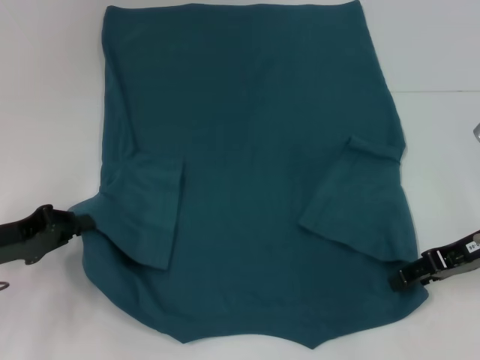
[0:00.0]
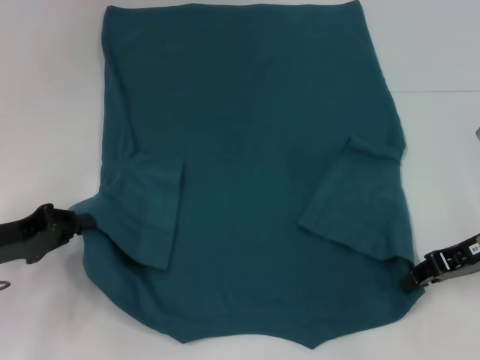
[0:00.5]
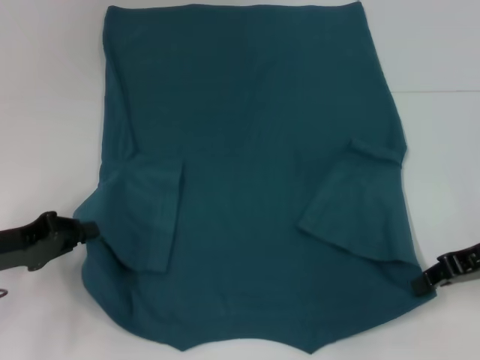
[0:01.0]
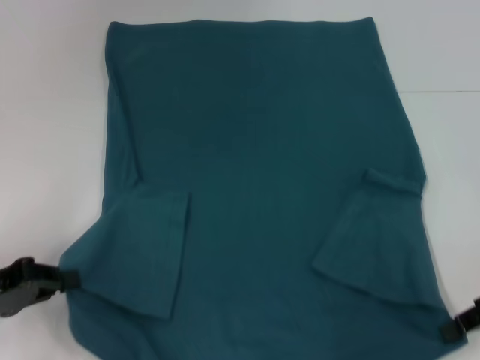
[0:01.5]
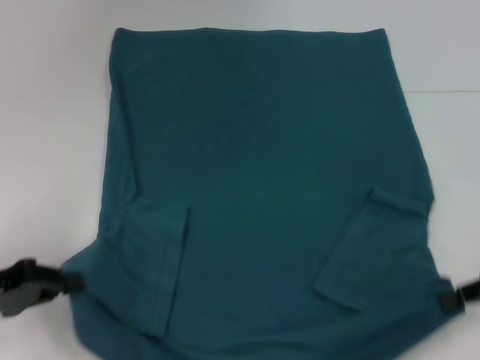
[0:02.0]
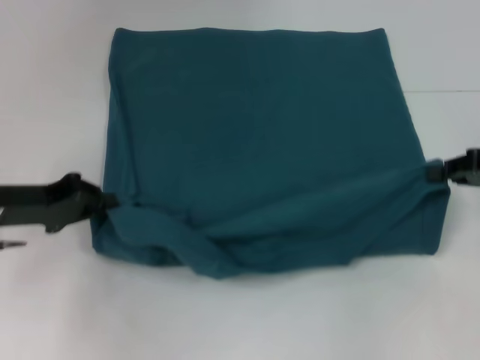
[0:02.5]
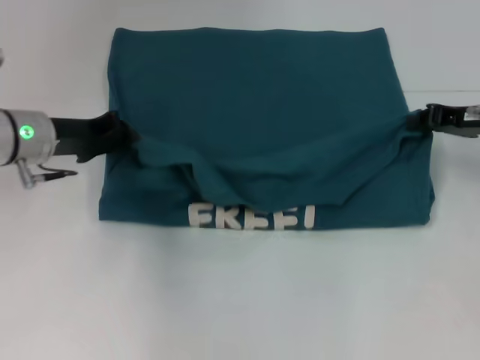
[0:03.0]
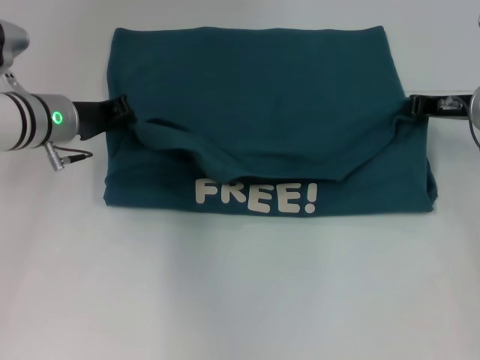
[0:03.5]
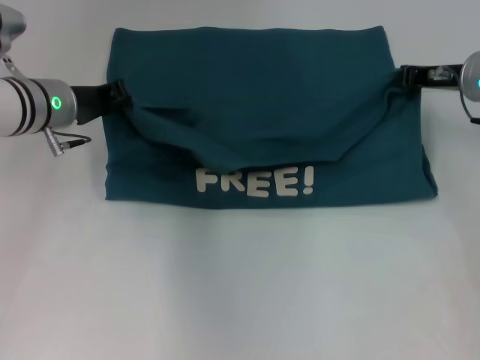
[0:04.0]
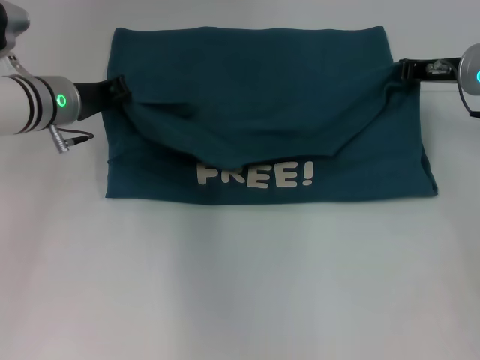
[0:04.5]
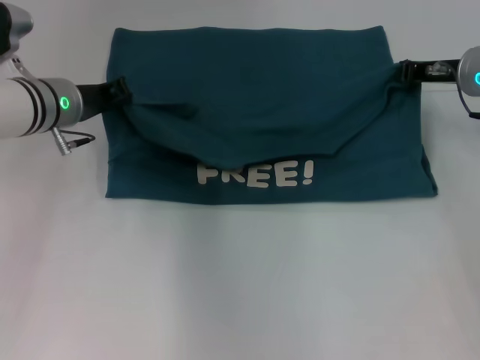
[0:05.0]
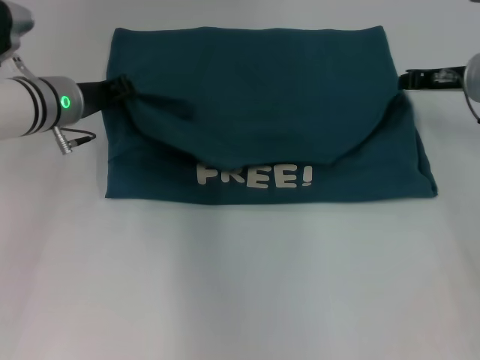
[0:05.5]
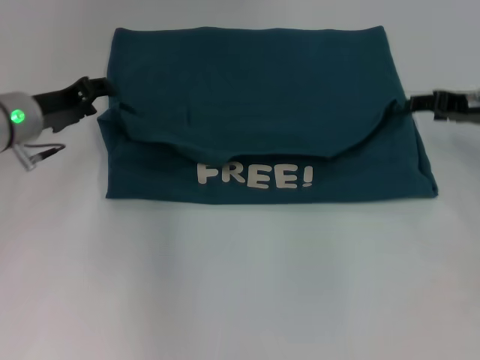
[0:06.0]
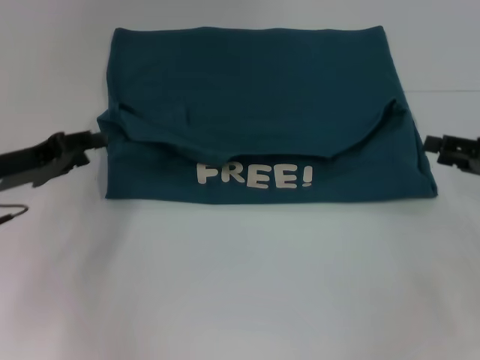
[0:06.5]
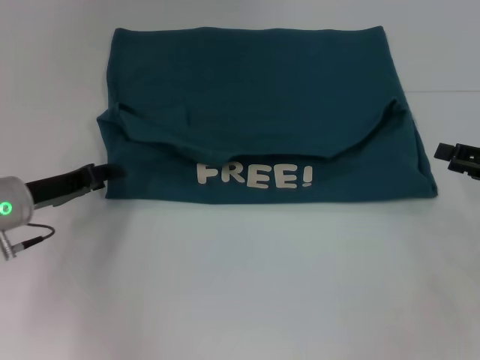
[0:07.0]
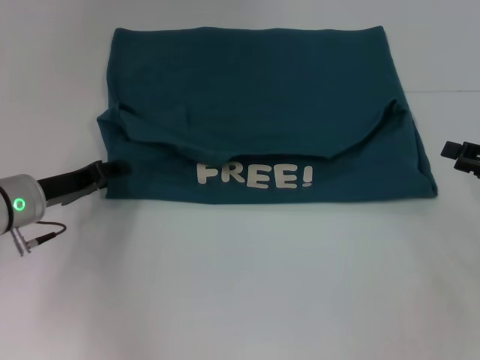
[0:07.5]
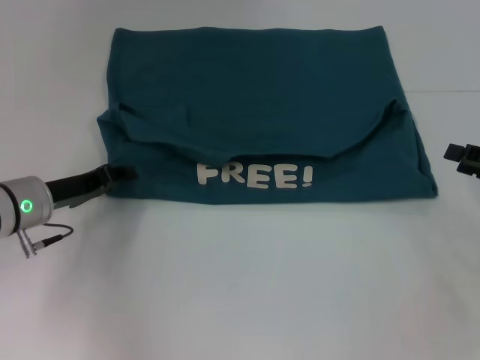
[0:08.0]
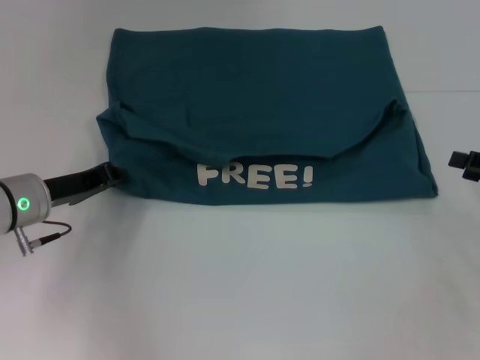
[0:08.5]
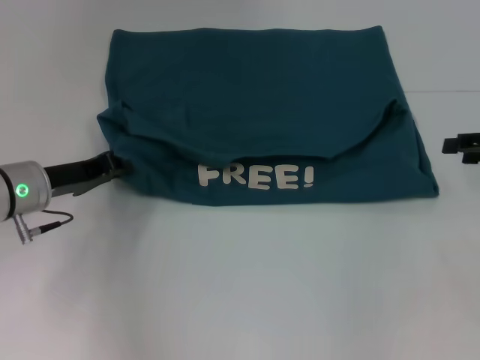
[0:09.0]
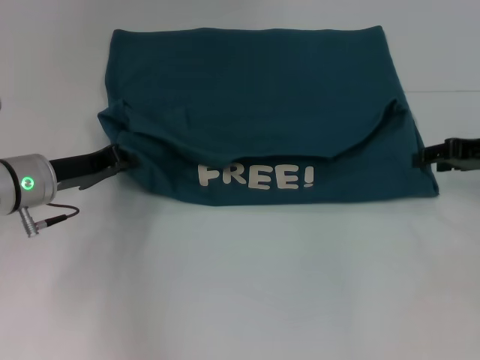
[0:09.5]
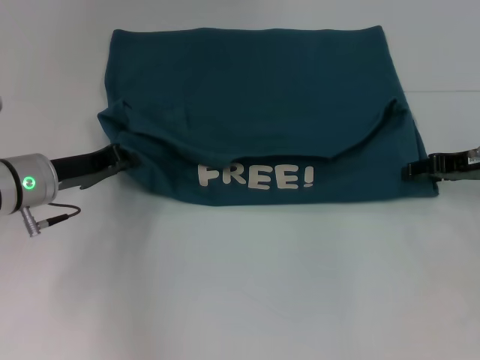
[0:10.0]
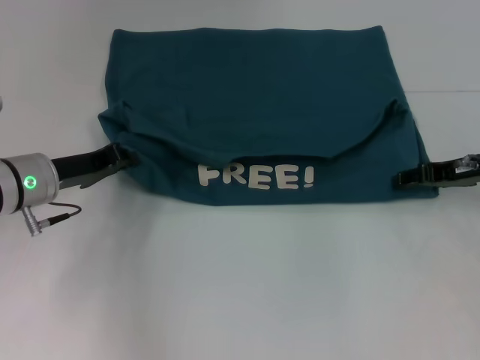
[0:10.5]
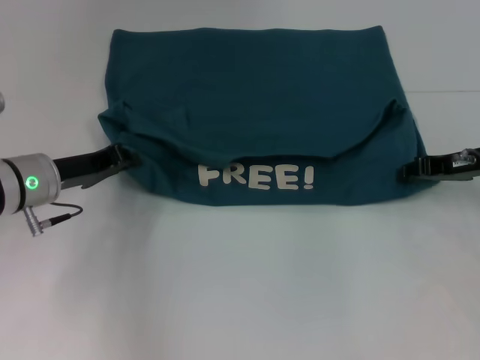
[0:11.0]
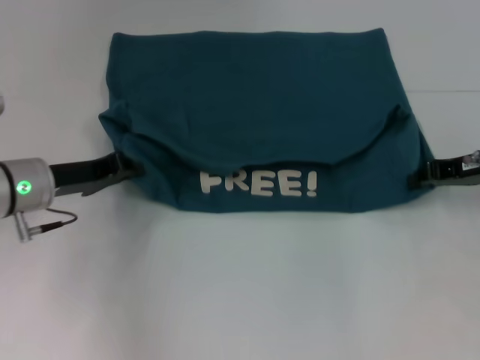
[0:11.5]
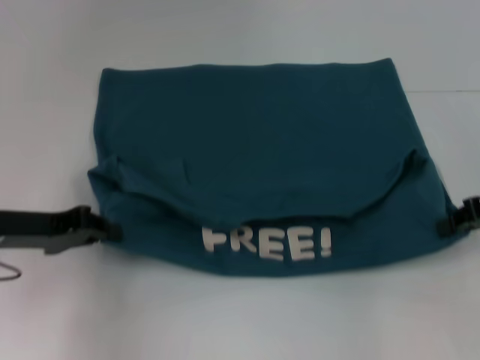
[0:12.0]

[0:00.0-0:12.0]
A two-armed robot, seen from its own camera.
Step, 0:01.0 to 0:06.0: Fold the clothes to the left.
Step, 0:01.0 to 0:06.0: Fold the clothes to the right.
0:00.0 to 0:02.0: The left gripper changes place by about 5 cm. Meanwhile the right gripper travels to the right and backward by some 5 cm, and closes up.
0:02.0 to 0:04.0: The left gripper is displaced forward and to the right by about 25 cm. The right gripper travels forward and to the left by approximately 20 cm.
0:04.0 to 0:06.0: The left gripper opens its fingers, while the right gripper opens its fingers.
0:06.0 to 0:08.0: The right gripper travels backward and to the right by some 15 cm, while the left gripper moves downward and backward, some 10 cm.
0:08.0 to 0:10.0: The right gripper travels forward and to the left by roughly 10 cm, while the left gripper closes its fingers.
0:10.0 to 0:12.0: The right gripper ends up roughly 5 cm from where it was, and closes up. Meanwhile the left gripper shifts approximately 5 cm backward.

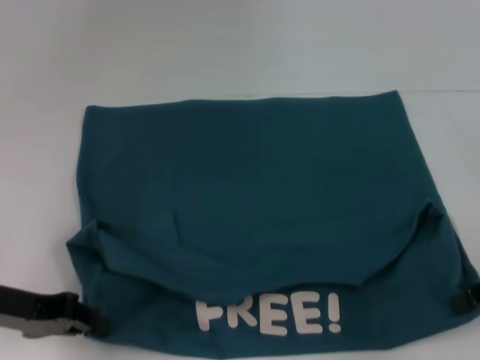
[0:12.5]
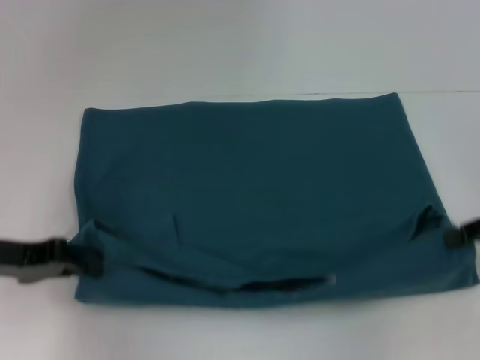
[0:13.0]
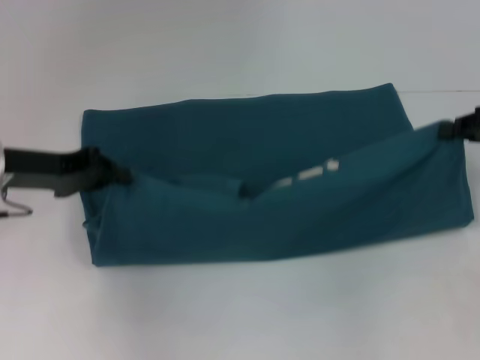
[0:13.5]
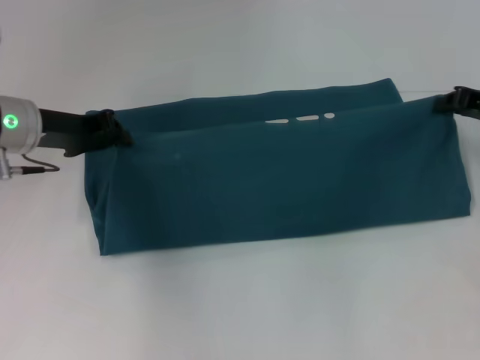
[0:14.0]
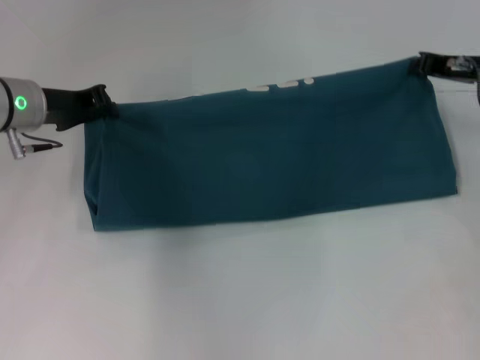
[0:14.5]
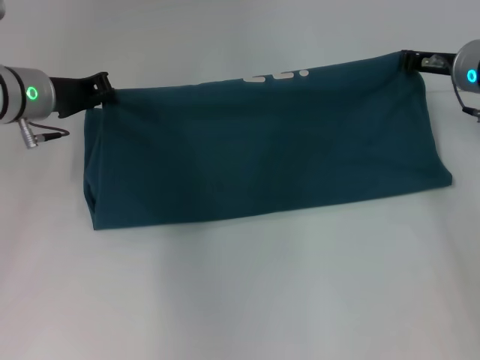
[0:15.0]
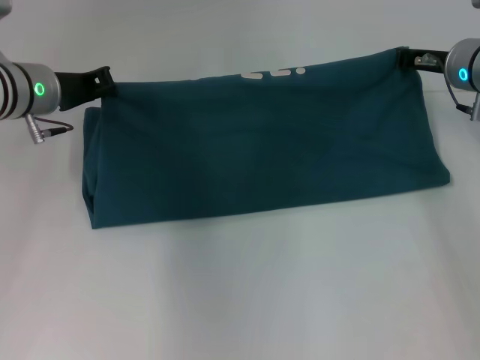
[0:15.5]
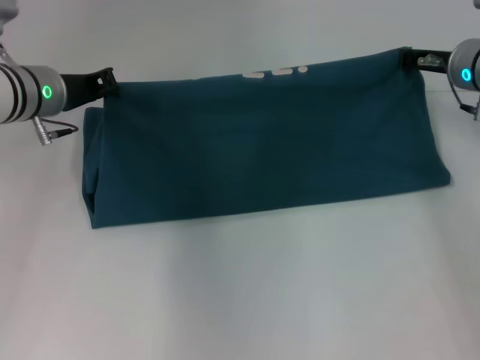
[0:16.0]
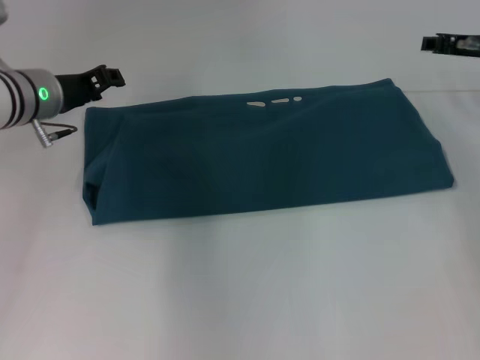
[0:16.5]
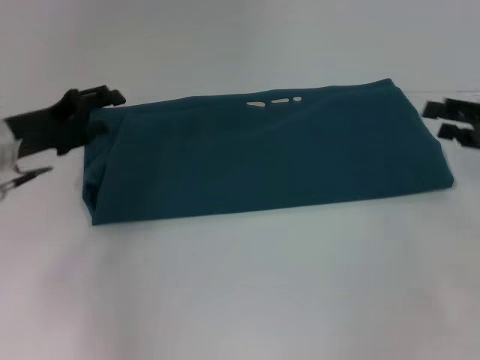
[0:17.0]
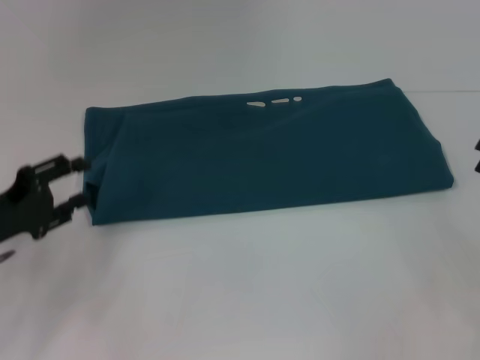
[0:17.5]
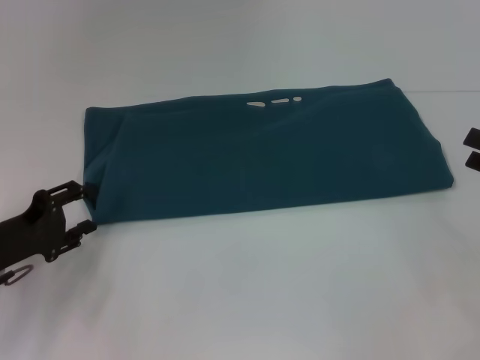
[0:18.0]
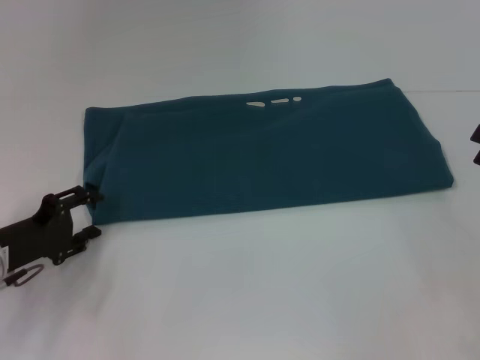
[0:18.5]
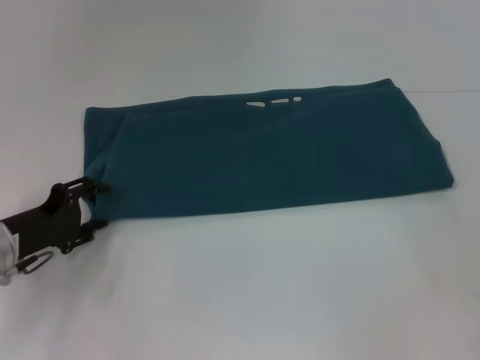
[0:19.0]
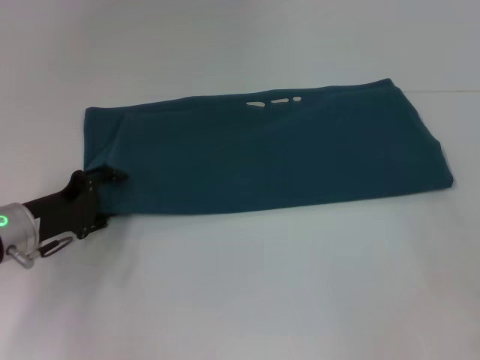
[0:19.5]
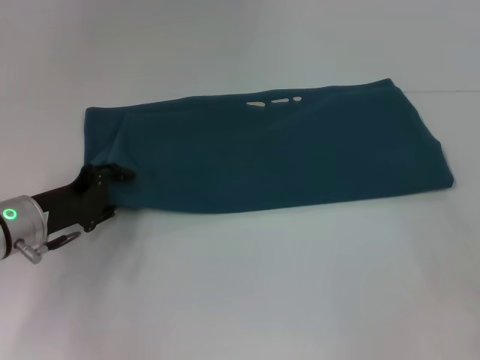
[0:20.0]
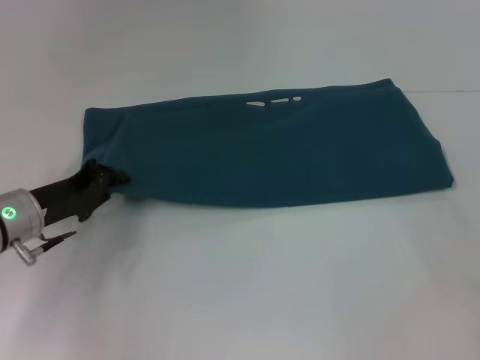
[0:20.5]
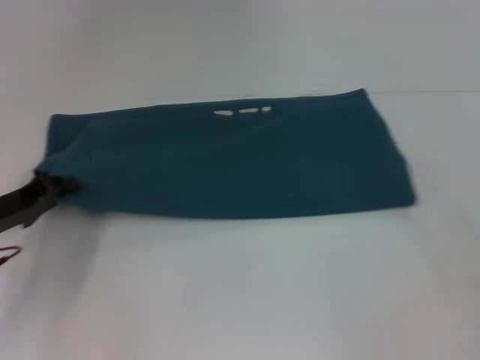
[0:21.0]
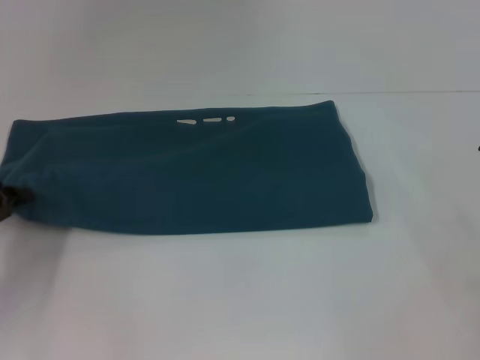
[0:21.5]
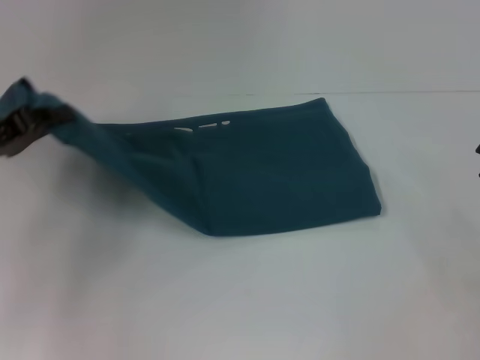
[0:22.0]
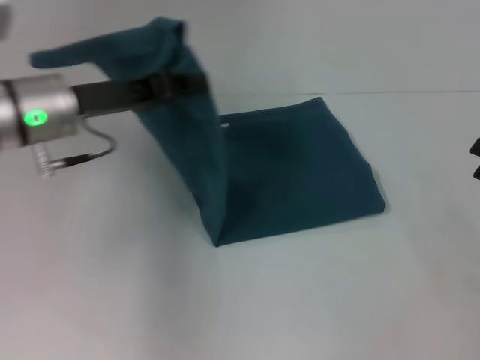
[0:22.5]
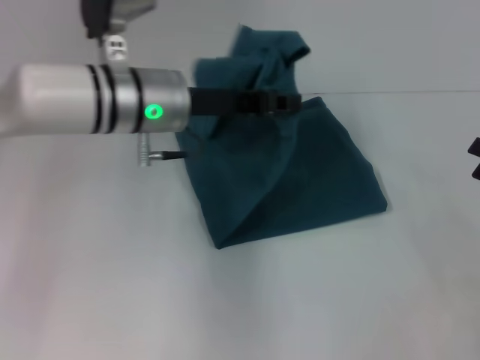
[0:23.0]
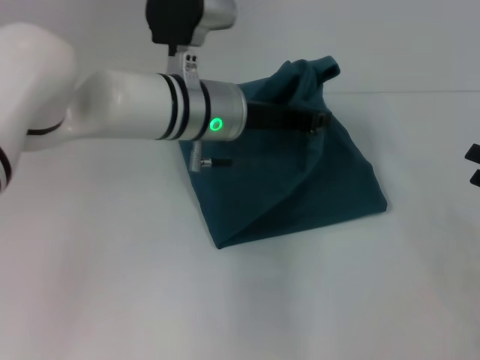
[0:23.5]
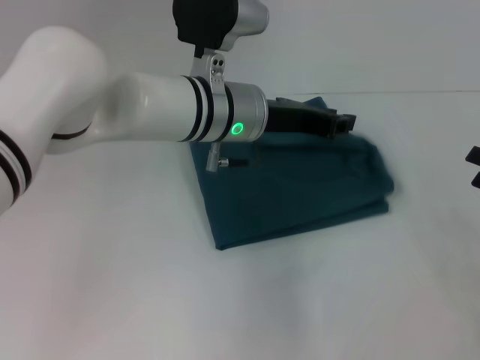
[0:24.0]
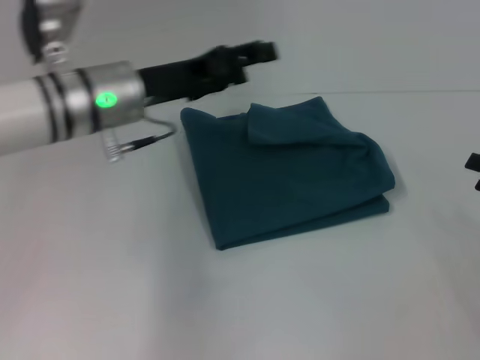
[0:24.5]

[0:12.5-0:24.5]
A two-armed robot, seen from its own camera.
Step, 0:13.0 to 0:16.0: Fold the clothes to the right.
Step, 0:13.0 to 0:24.0: Fold the clothes to the left.
0:12.5 to 0:14.5: The left gripper travels forward by roughly 15 cm, while the right gripper moves forward and to the left, approximately 15 cm.
0:14.5 to 0:16.5: The right gripper opens.
0:16.5 to 0:18.5: The left gripper is displaced backward, downward and to the left by roughly 20 cm, and opens. The right gripper travels backward and to the right by about 20 cm.
0:18.5 to 0:20.5: The left gripper changes place by about 5 cm, and closes up.
0:20.5 to 0:22.5: The left gripper shifts roughly 15 cm upward and to the right.
0:22.5 to 0:24.5: The left gripper travels to the right and back again, approximately 15 cm each way, and opens up.

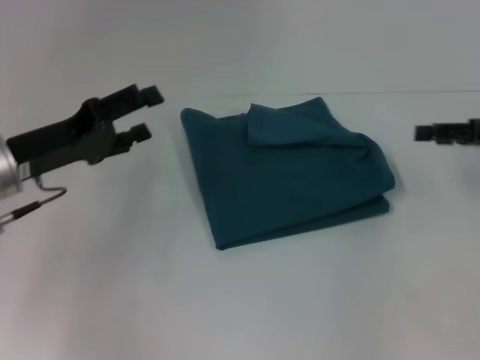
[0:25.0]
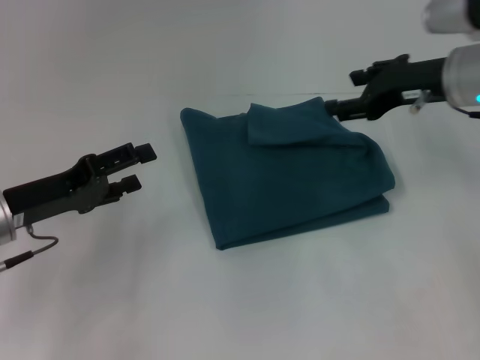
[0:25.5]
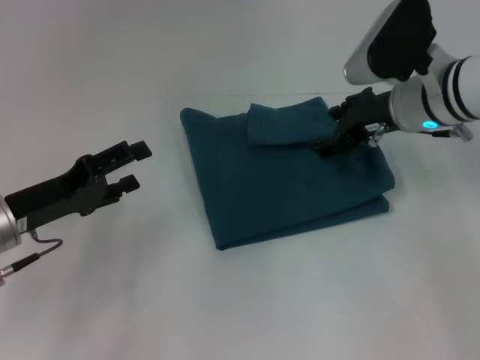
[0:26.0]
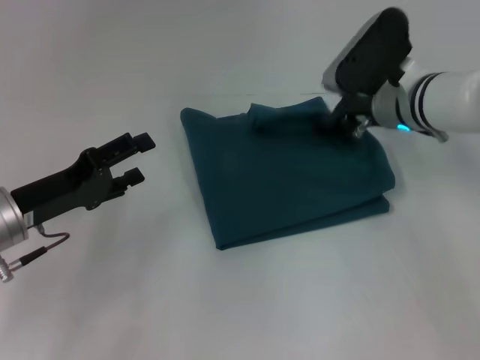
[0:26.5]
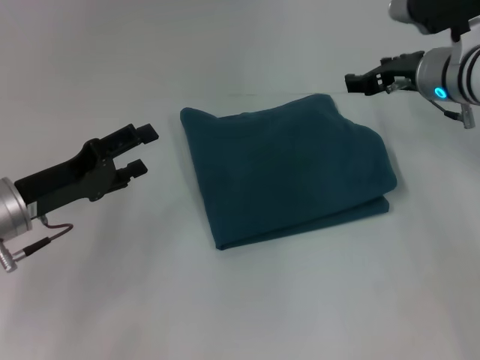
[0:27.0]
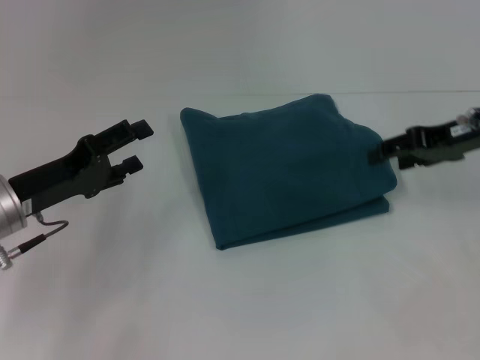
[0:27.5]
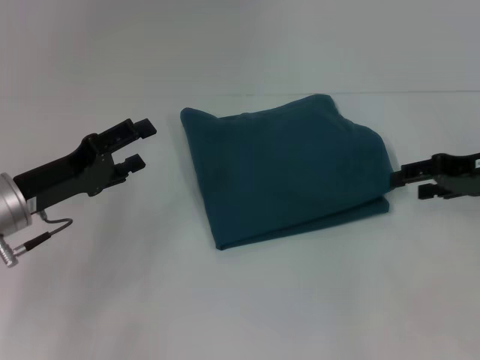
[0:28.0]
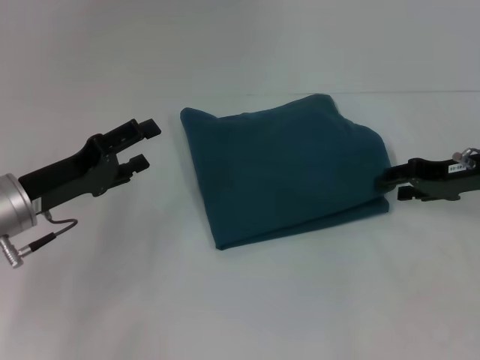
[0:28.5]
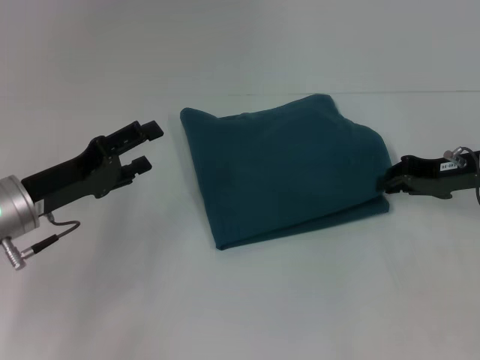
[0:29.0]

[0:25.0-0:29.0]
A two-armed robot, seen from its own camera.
0:25.0 to 0:27.0: The right gripper heads to the left and forward, covering roughly 15 cm.
0:27.0 to 0:29.0: The right gripper goes some 10 cm to the right and backward.
